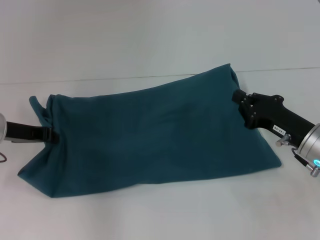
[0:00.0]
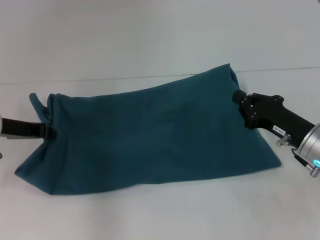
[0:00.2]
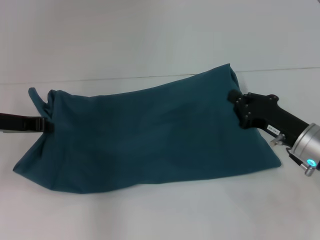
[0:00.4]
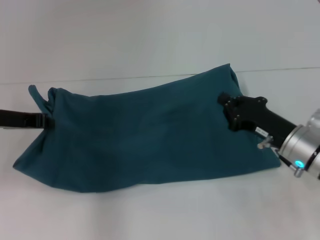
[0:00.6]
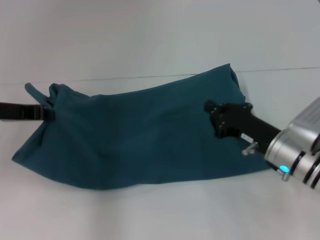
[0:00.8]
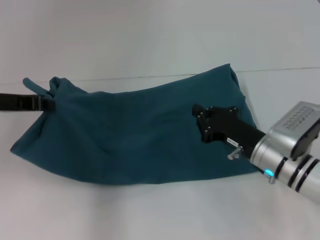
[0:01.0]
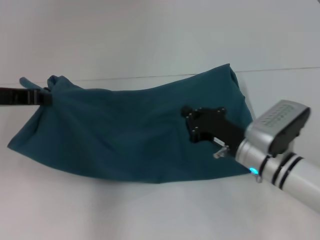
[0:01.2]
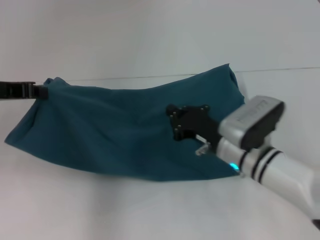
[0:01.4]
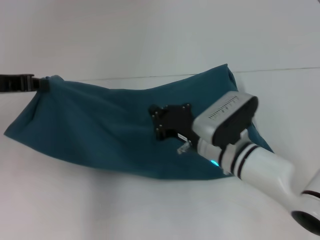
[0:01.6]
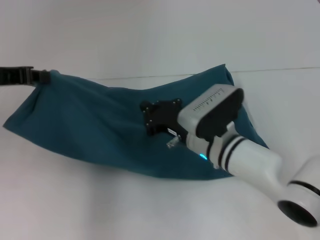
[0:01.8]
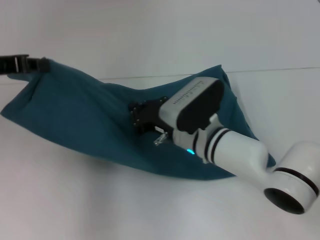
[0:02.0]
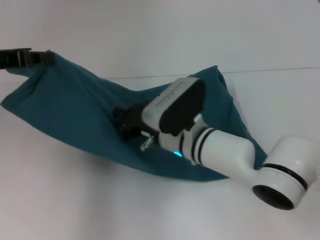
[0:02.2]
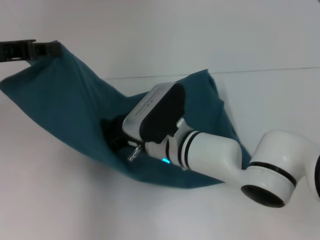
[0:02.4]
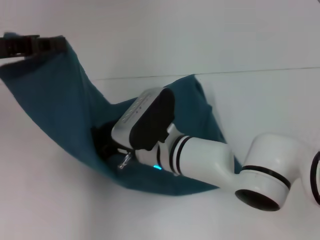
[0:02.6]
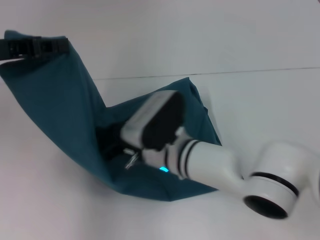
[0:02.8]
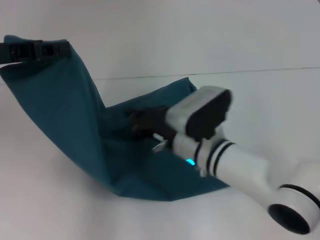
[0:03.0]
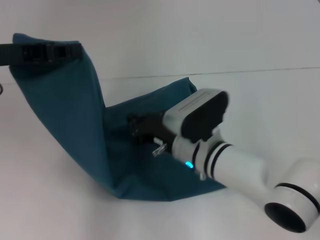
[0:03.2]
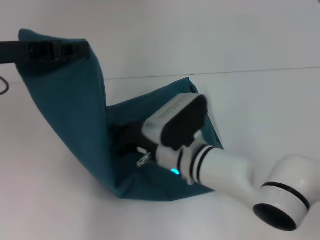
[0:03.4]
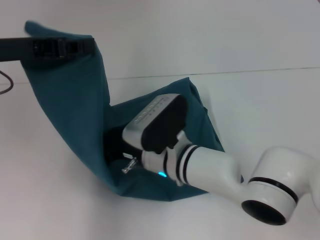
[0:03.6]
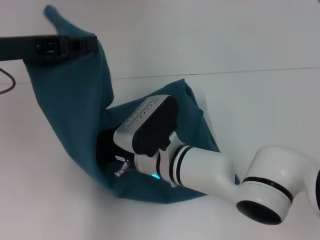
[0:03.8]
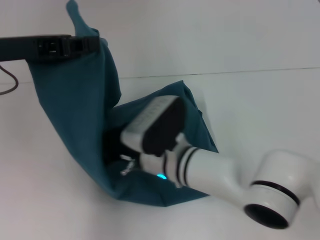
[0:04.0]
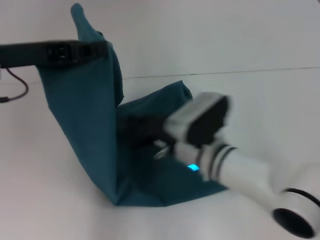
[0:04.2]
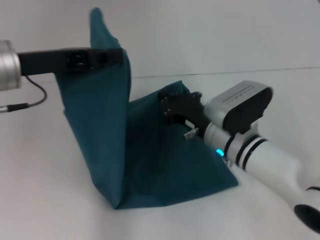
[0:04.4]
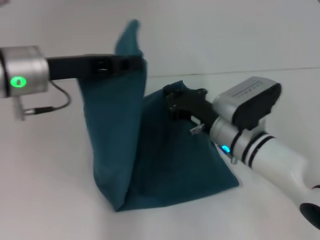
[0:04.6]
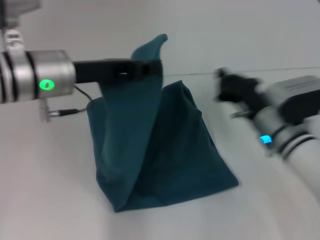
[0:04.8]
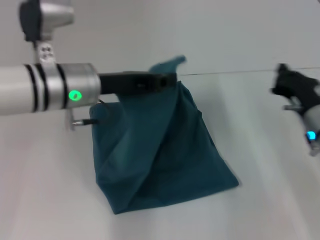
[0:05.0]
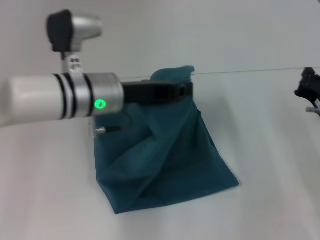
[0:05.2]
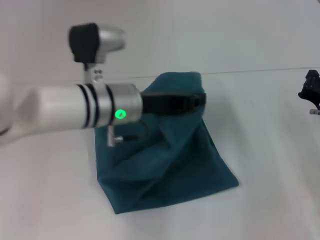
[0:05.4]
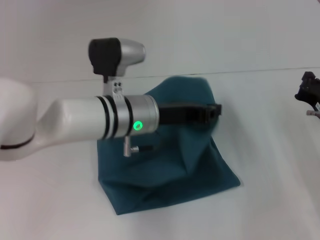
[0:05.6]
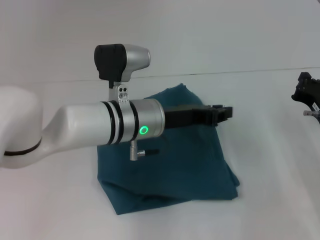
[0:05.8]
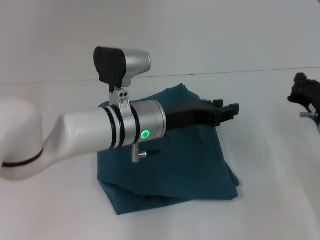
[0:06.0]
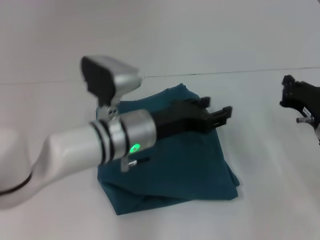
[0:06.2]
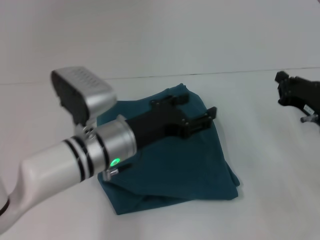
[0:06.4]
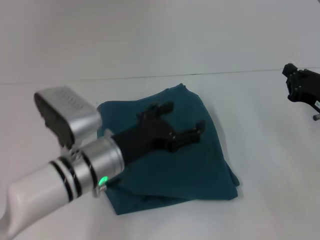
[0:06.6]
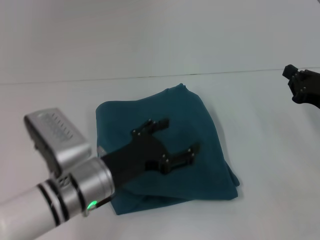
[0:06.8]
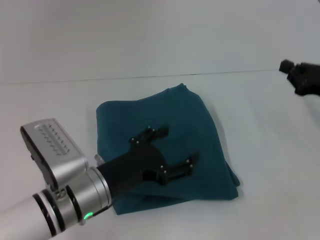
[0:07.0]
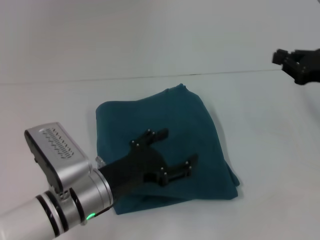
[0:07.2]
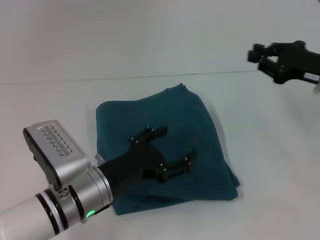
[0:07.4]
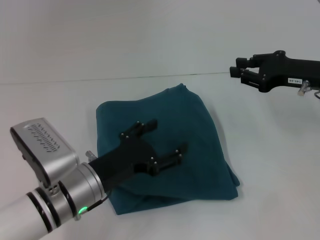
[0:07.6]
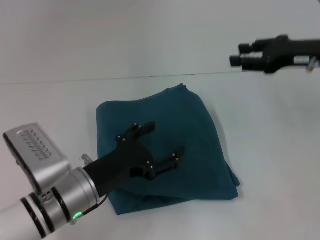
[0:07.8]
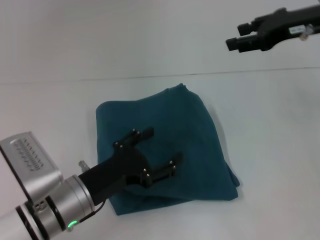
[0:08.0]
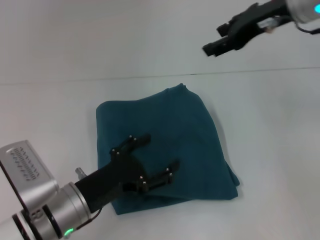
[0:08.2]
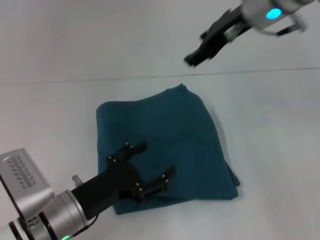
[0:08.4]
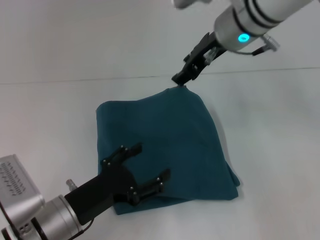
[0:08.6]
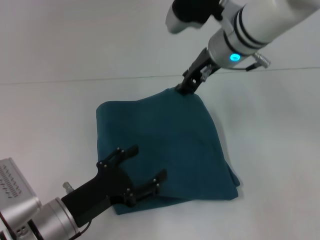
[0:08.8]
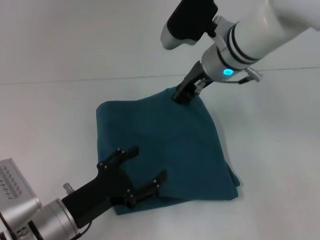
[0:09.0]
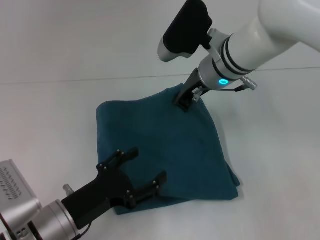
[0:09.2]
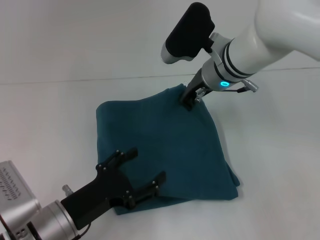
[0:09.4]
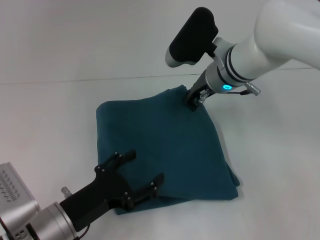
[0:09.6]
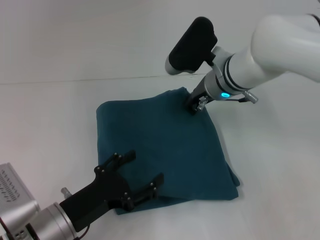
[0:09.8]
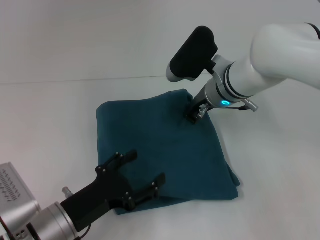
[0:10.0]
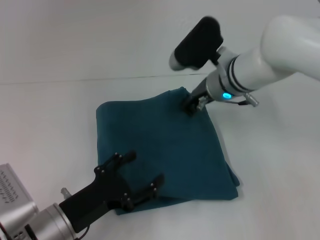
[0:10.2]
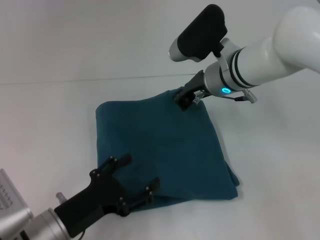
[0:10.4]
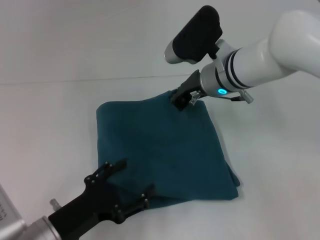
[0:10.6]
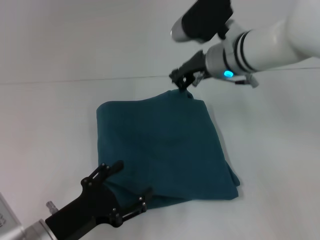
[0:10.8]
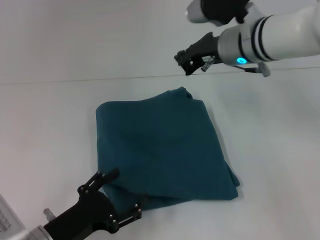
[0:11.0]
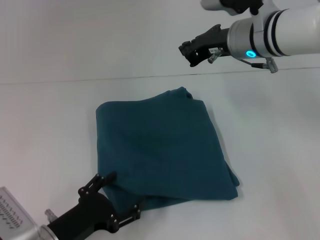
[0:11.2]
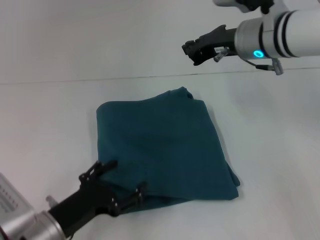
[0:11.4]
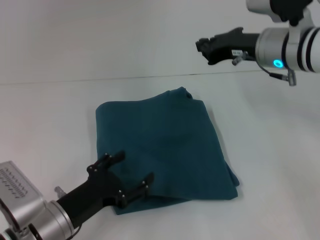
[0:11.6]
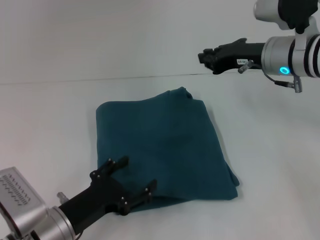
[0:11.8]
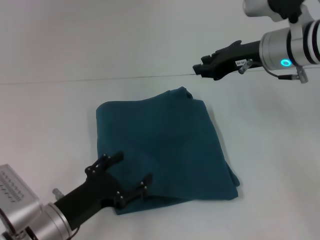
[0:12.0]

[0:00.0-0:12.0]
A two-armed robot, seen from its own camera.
Step, 0.0 to 4.0 s: Press the middle of the clothes with your right hand.
Step, 4.2 to 6.2 s: Fold the clothes to the left.
0.0 to 1.6 s: The left gripper travels upward by some 10 cm; the right gripper shifts some 15 cm to the left.
3.0 to 4.4 s: The left gripper moves to the right, some 5 cm.
4.4 to 6.0 s: The left gripper moves to the right and downward, about 20 cm. The right gripper shifts roughly 15 cm to the right.
6.0 to 7.6 s: The left gripper shifts about 15 cm to the left, backward and downward, and opens; the right gripper shifts some 10 cm upward and forward.
7.6 to 9.0 s: The left gripper moves about 5 cm, while the right gripper goes roughly 20 cm to the left.
9.0 to 10.4 s: The right gripper closes up.
10.4 to 12.0 s: The right gripper travels to the right by some 10 cm.

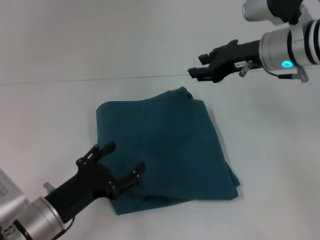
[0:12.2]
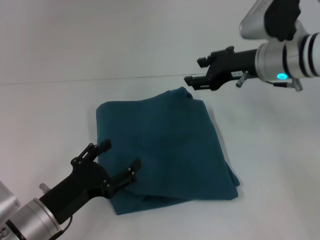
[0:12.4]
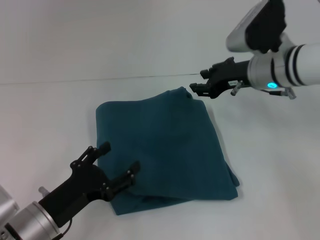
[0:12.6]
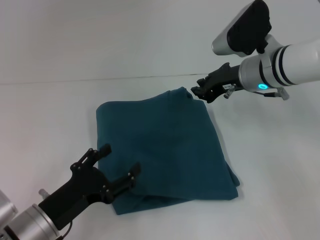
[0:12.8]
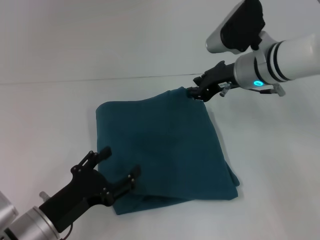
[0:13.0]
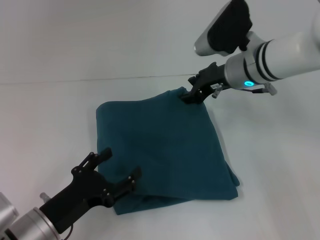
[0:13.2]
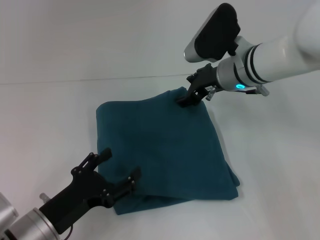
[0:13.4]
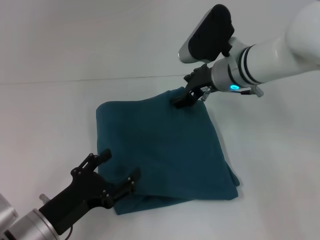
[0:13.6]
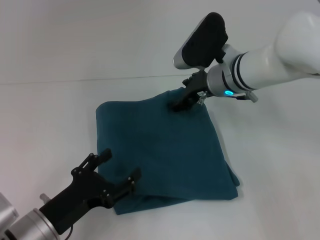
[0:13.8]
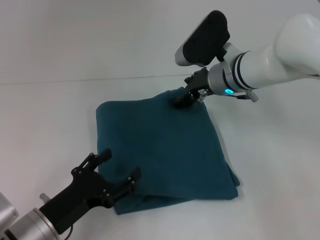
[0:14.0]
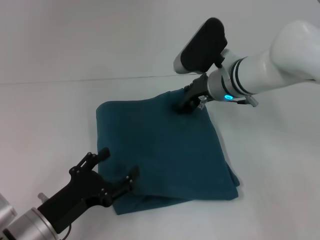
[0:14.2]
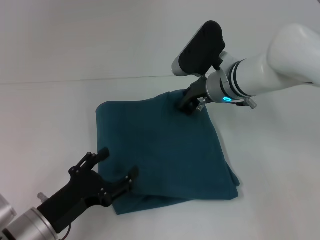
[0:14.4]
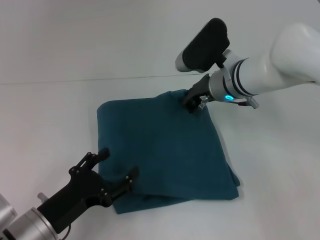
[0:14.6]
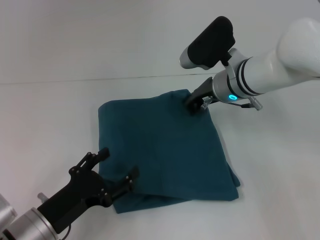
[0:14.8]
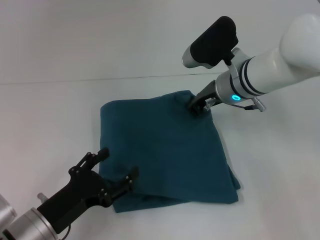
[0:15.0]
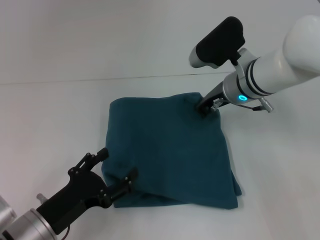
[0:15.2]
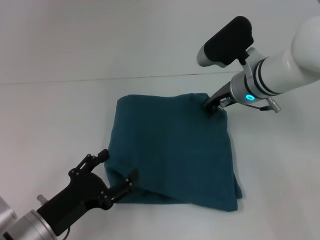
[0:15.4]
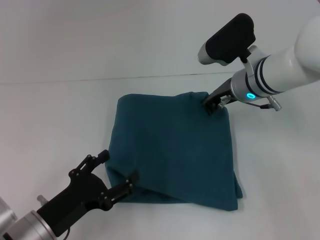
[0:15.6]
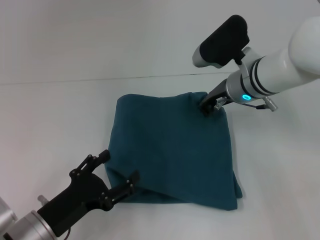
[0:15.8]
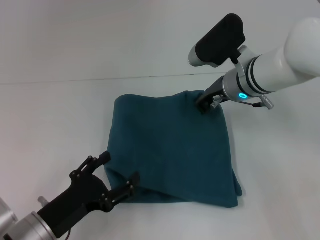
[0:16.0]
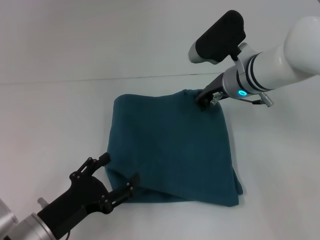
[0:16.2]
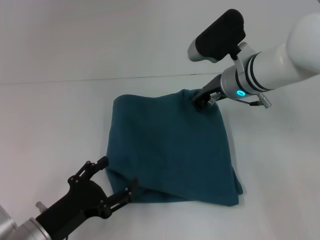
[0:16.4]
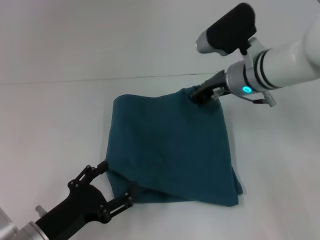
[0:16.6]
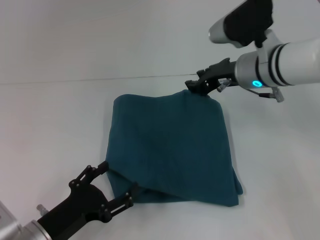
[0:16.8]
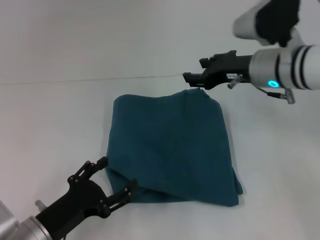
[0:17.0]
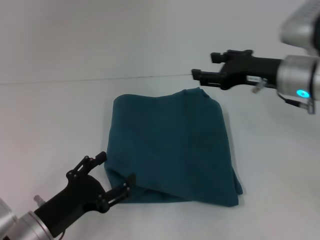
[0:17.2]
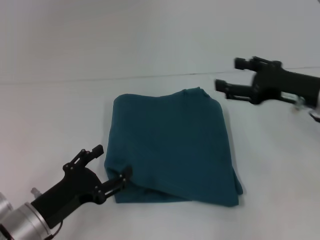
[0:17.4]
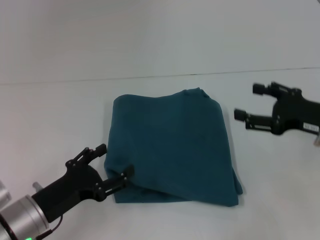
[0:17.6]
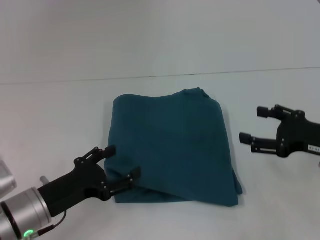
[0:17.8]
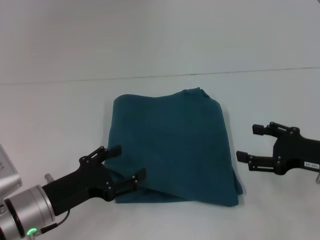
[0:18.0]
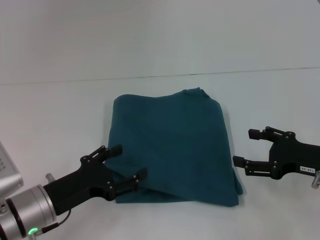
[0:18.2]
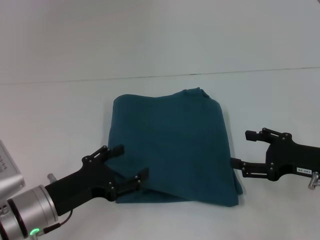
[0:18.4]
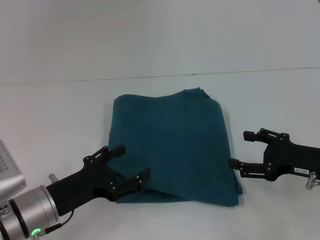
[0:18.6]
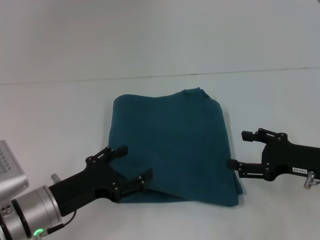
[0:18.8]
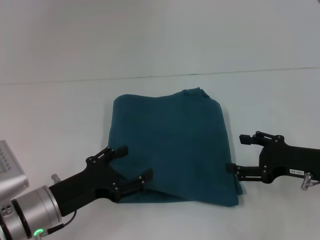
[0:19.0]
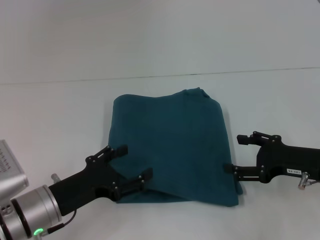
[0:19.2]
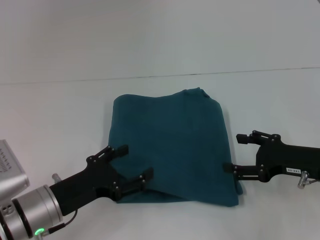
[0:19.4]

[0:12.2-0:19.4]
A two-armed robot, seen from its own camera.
12.2 to 13.6 s: The right gripper travels to the left and downward by approximately 10 cm, and opens up.
13.6 to 15.0 s: The right gripper closes.
15.0 to 16.6 s: The grippers stay close to where they were, moving slightly.
16.6 to 18.0 s: The left gripper travels forward by about 5 cm; the right gripper moves to the right, backward and downward, some 20 cm, and opens its fingers.
18.0 to 19.4 s: The grippers make only small movements.

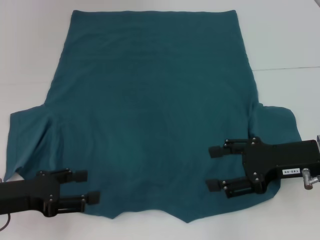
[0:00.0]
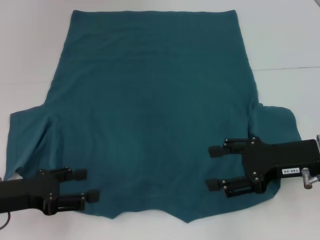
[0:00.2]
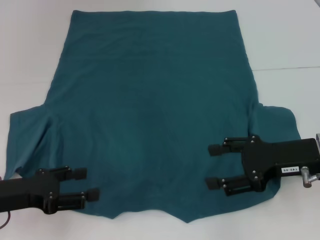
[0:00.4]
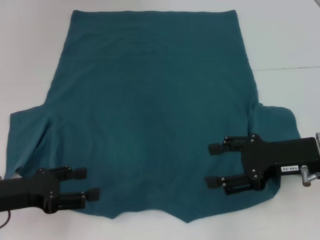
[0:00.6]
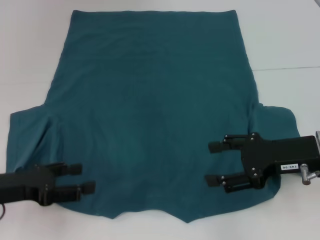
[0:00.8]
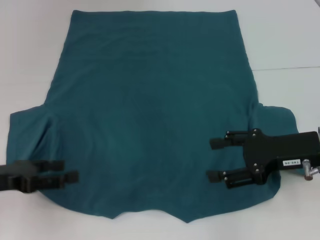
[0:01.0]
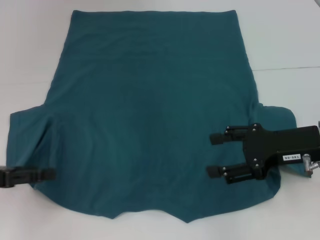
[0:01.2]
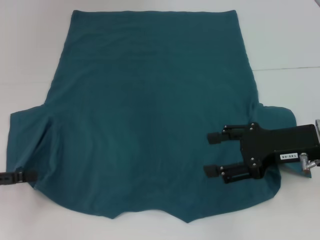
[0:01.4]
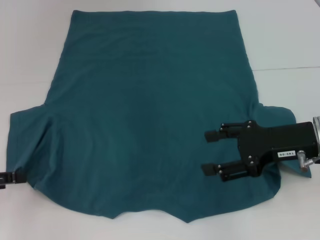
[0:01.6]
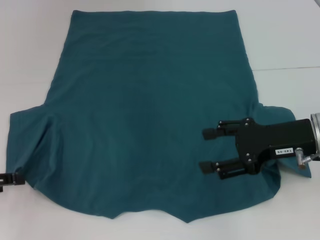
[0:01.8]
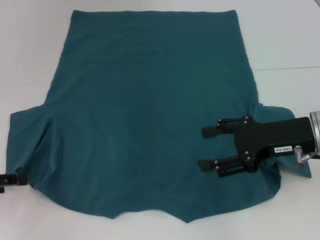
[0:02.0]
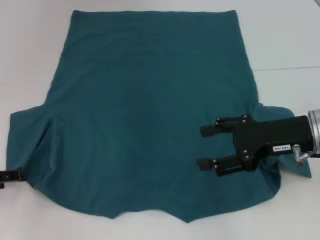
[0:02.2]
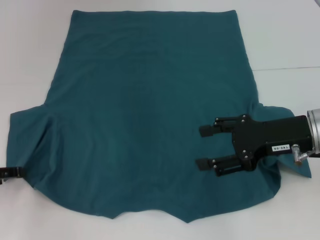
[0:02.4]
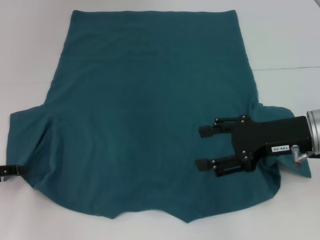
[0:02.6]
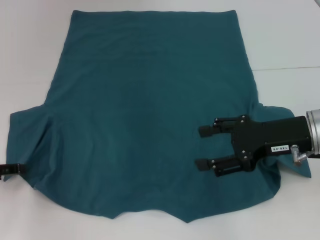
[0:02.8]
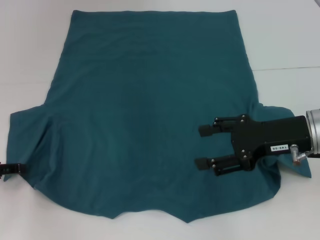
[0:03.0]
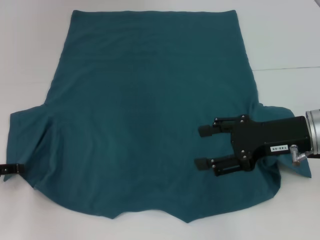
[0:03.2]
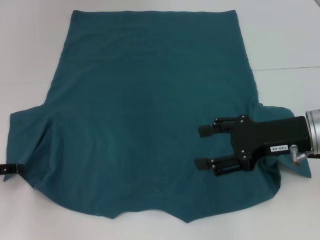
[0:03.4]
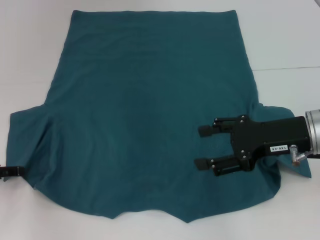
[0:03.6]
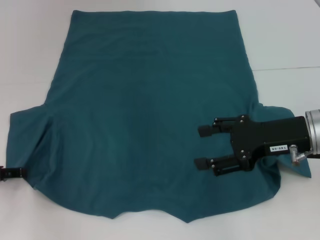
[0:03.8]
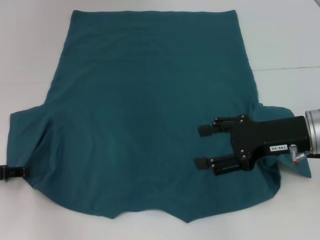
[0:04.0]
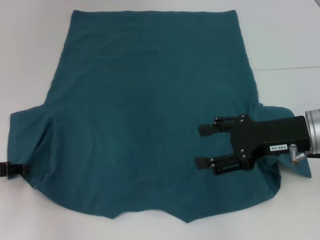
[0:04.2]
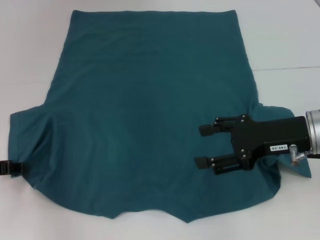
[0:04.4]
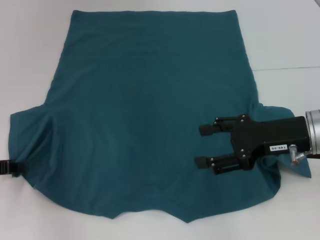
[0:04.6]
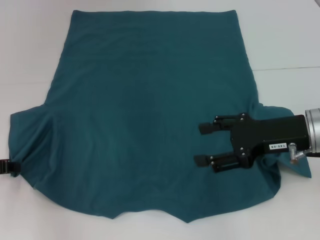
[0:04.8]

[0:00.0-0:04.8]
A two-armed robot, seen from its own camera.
0.0 to 1.6 s: The left gripper goes some 10 cm to the left.
1.6 to 3.2 s: There are only small adjustments of the grippers.
3.2 to 4.8 s: The left gripper closes.
